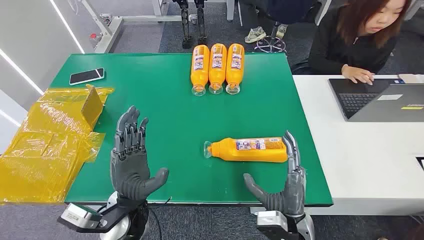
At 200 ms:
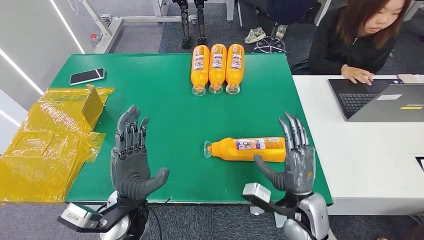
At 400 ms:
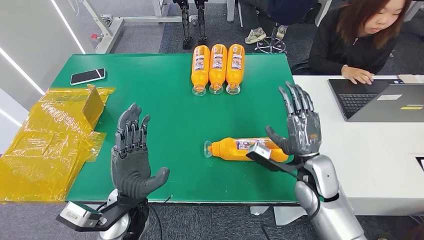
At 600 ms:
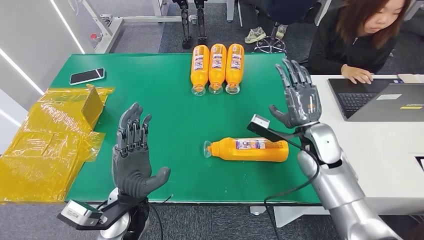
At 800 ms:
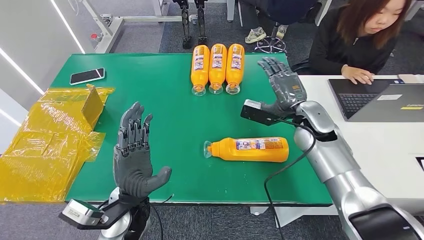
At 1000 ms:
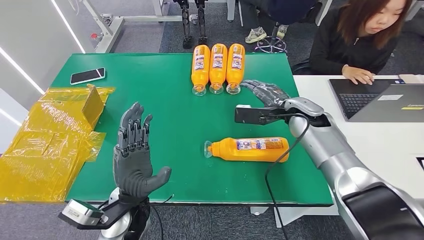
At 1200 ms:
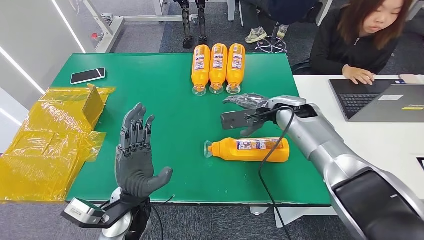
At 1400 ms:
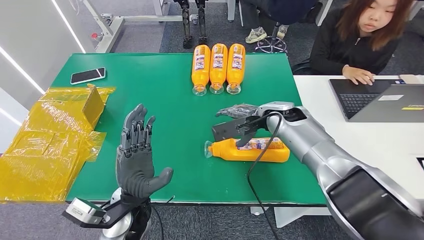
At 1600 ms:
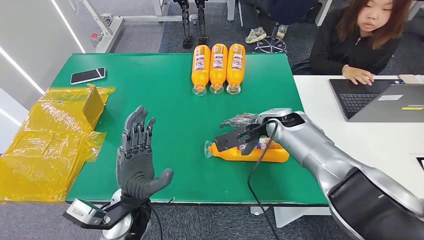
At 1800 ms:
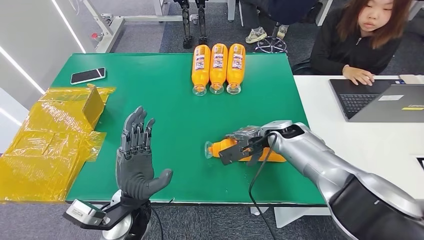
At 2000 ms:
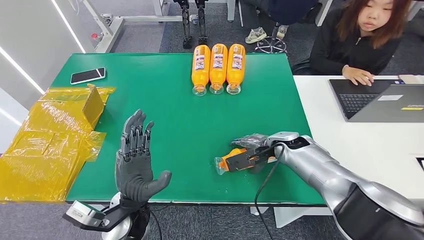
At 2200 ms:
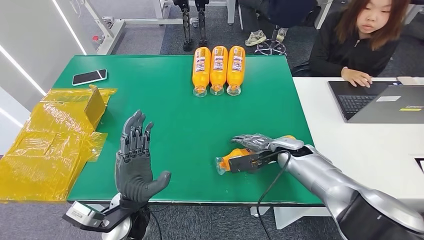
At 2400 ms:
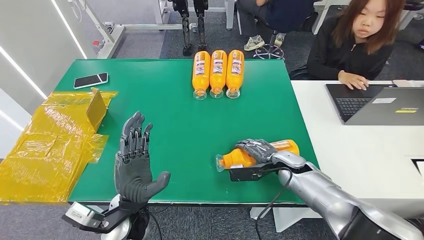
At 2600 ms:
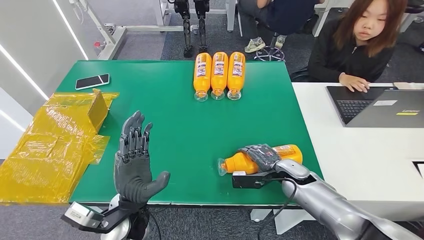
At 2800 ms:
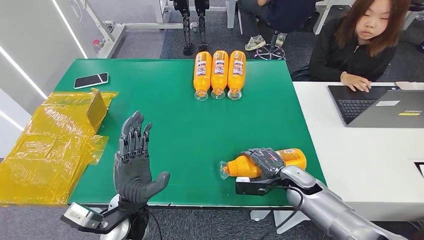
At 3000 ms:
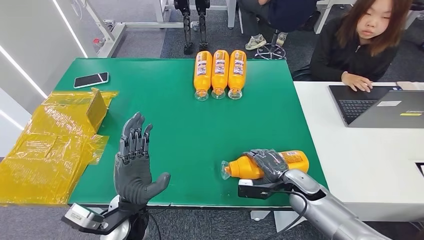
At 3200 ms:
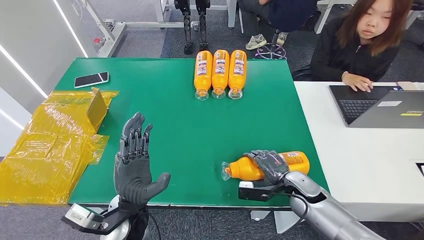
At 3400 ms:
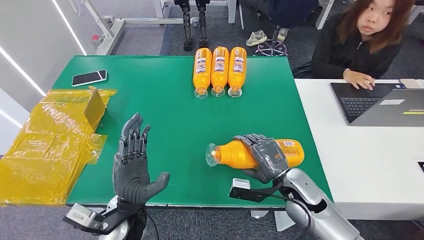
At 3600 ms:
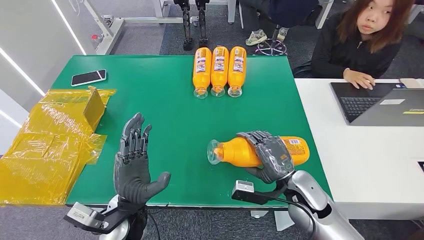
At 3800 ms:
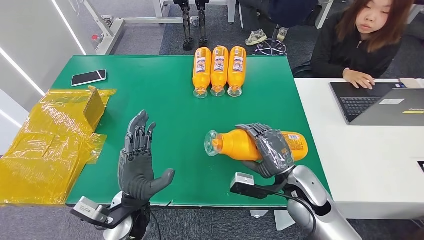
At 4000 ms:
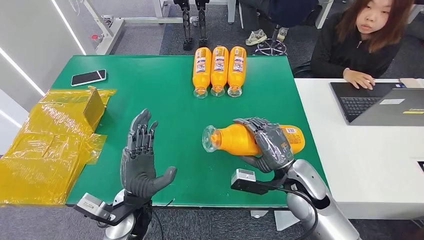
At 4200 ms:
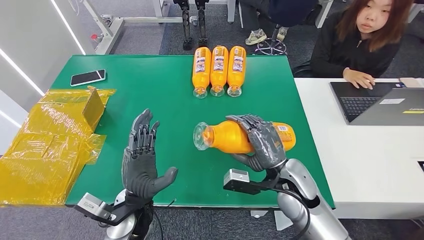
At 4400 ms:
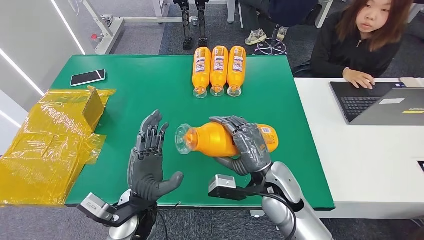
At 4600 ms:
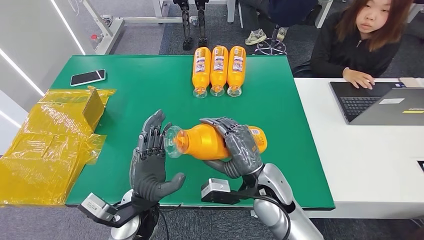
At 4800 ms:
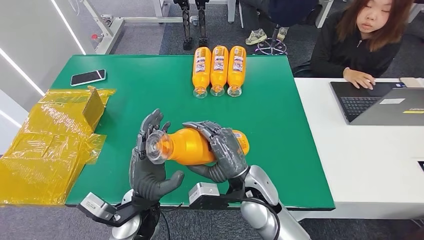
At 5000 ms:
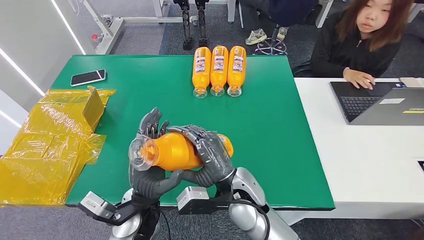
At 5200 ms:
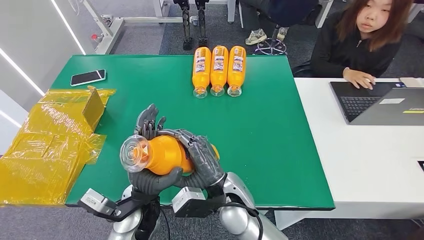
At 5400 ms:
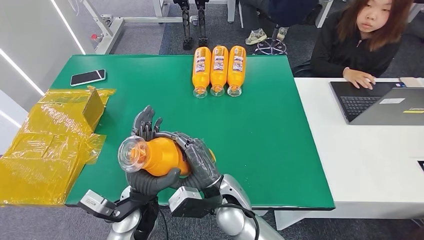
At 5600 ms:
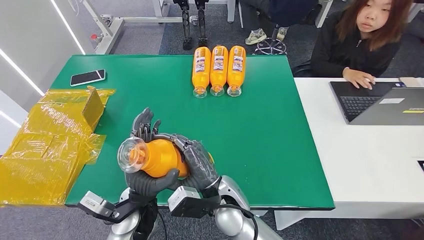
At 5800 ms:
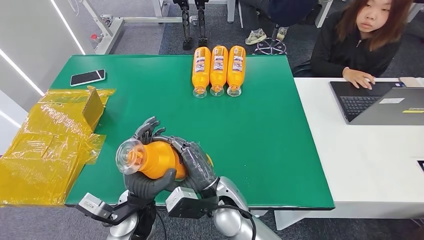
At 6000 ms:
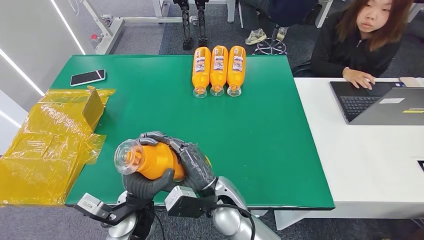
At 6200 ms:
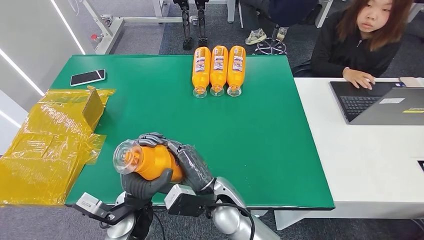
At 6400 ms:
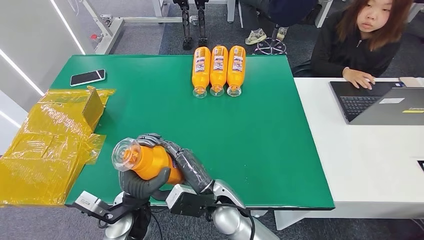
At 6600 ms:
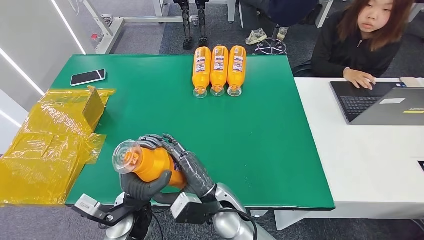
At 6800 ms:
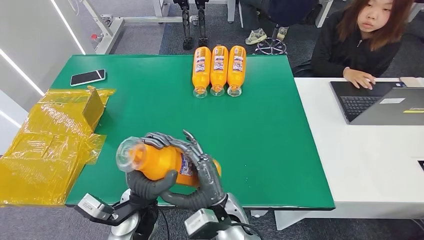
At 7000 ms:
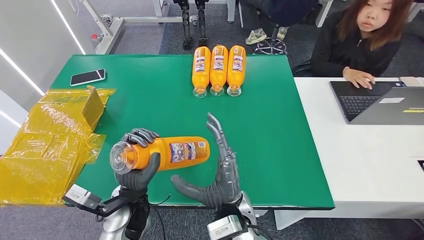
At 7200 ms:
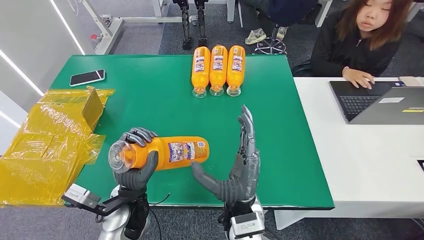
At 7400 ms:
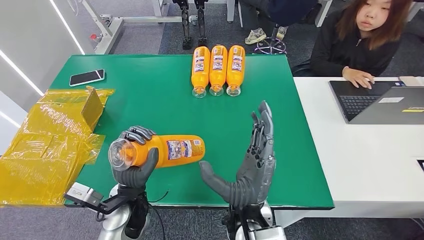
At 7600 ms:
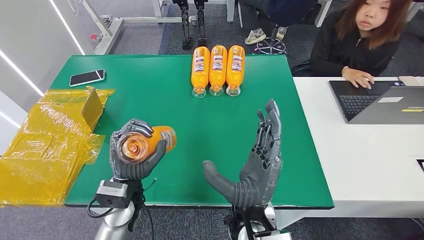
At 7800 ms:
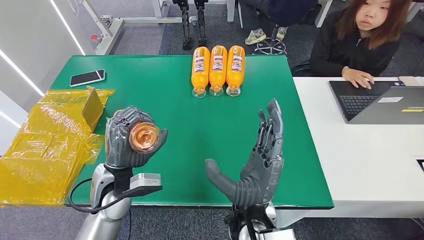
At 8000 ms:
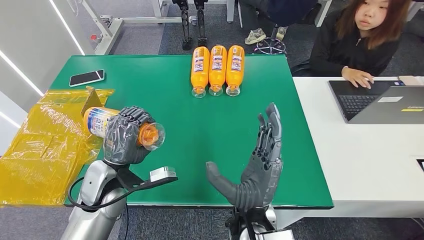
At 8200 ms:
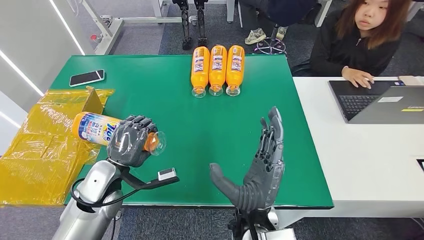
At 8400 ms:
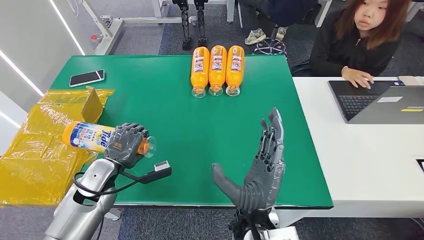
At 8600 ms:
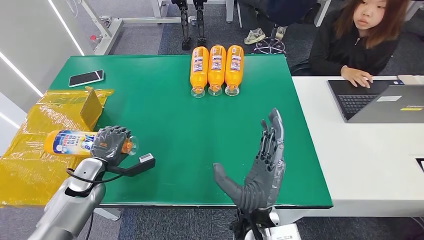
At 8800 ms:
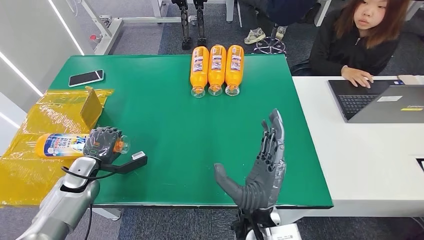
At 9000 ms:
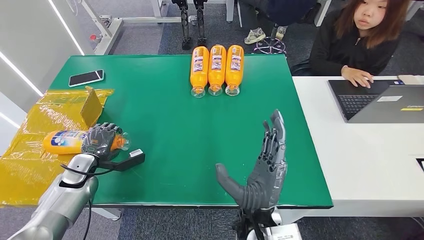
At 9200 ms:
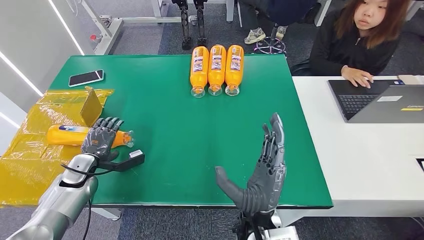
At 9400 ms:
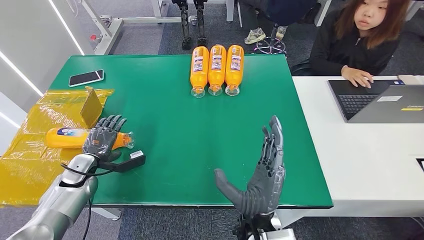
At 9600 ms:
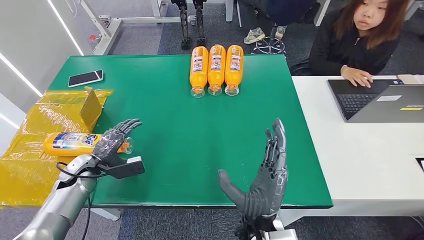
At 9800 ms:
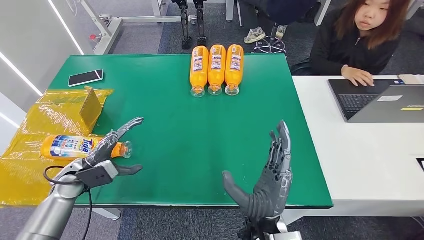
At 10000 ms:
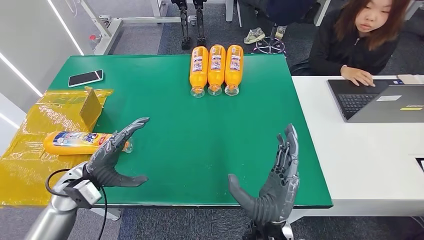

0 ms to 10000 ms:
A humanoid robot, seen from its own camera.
Step, 0 ms to 4400 ms: Pick up the bottle from the table.
Step, 4600 ms to 10000 ms: Turn the bottle to the front side.
4200 ms to 5800 ms: The right hand travels to the left by about 15 cm.
7200 ms to 8600 ms: The left hand travels to the left by some 20 cm.
8600 ms to 10000 ms: The left hand moves upward, roughly 5 cm.
